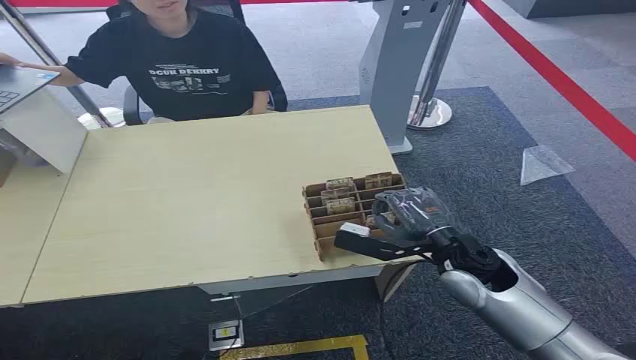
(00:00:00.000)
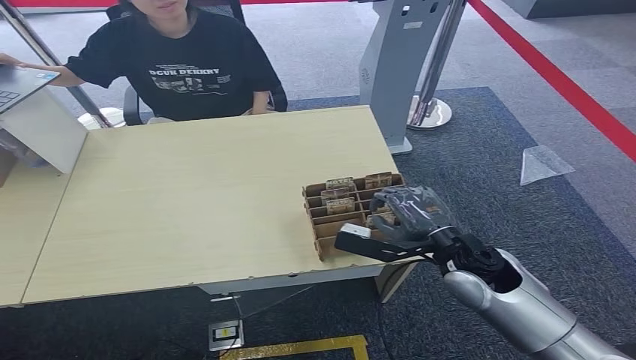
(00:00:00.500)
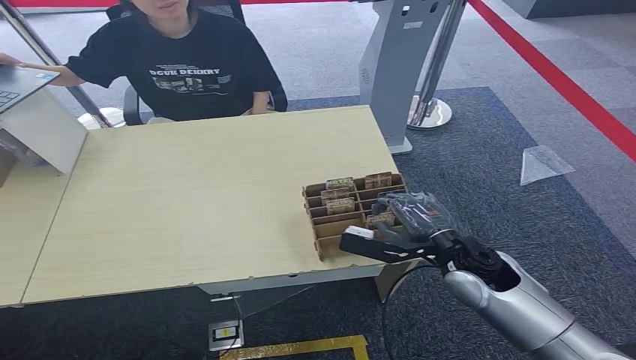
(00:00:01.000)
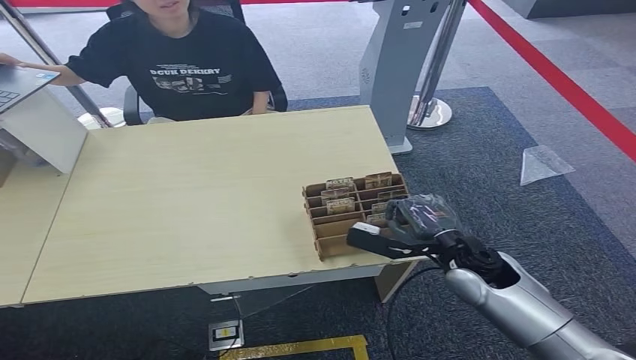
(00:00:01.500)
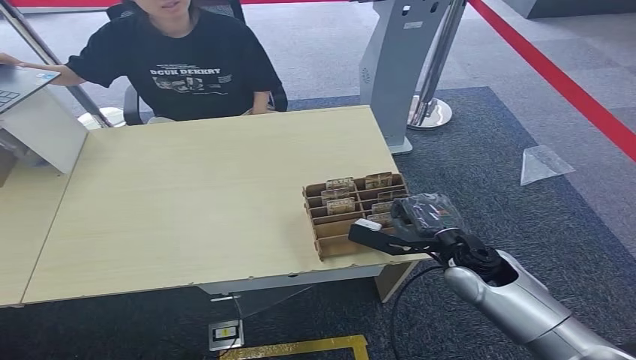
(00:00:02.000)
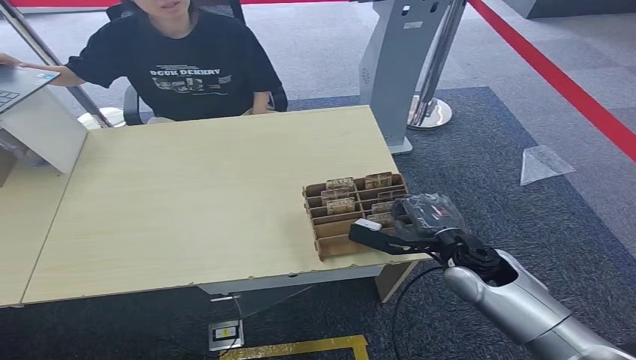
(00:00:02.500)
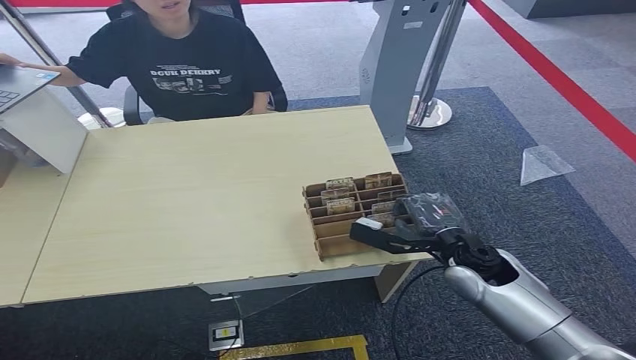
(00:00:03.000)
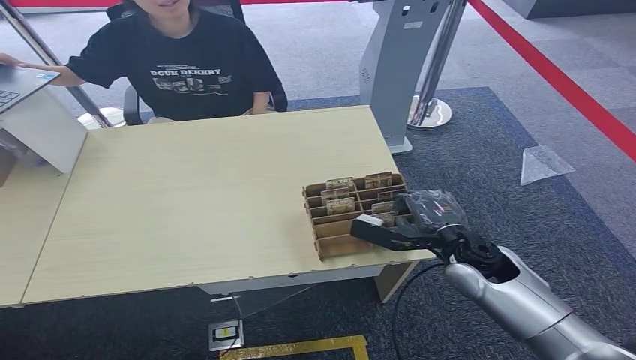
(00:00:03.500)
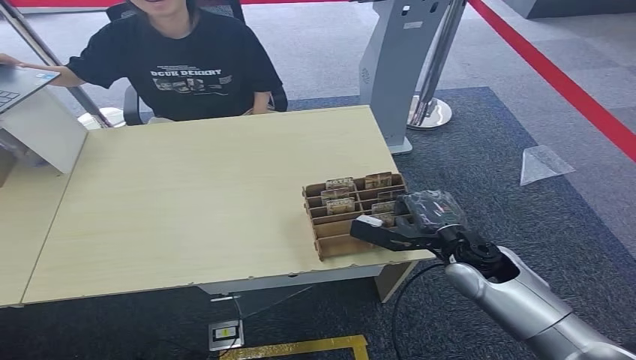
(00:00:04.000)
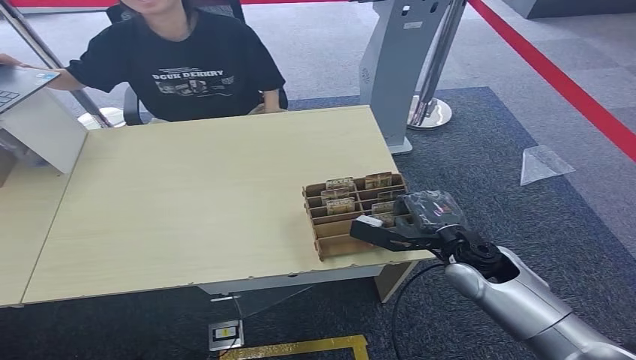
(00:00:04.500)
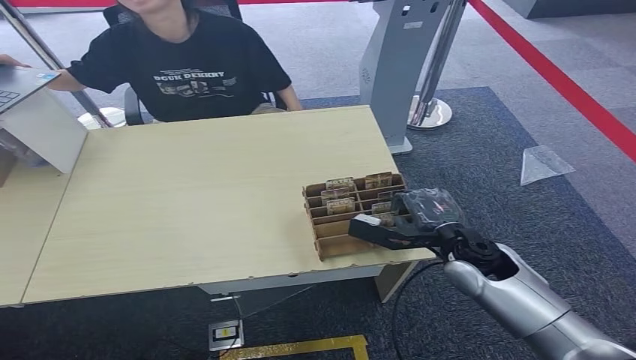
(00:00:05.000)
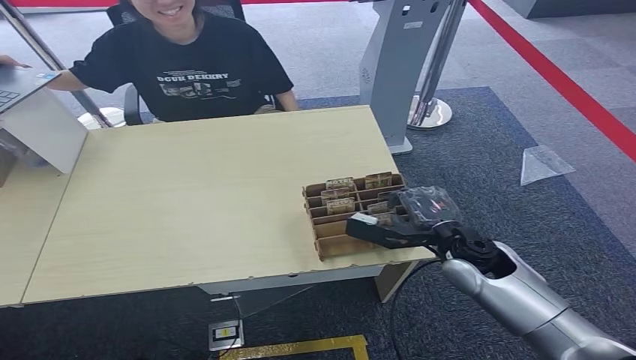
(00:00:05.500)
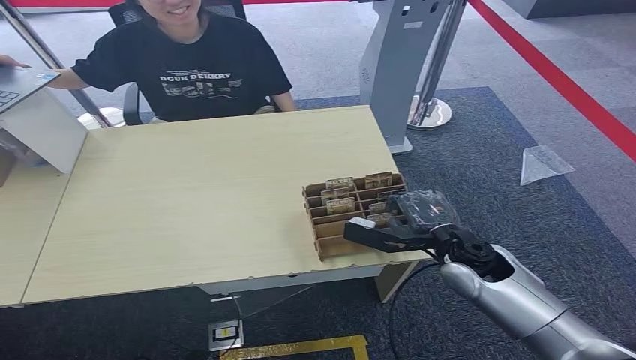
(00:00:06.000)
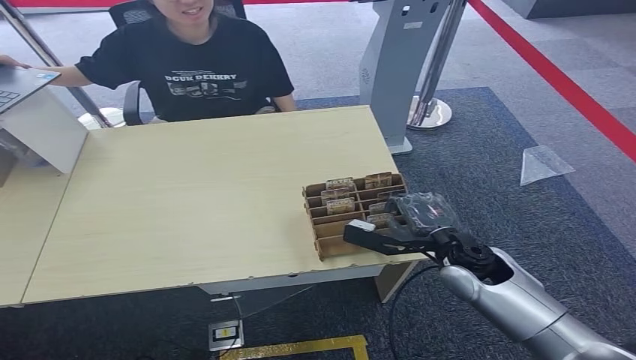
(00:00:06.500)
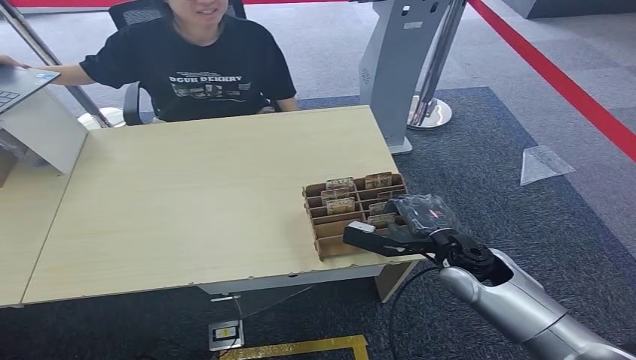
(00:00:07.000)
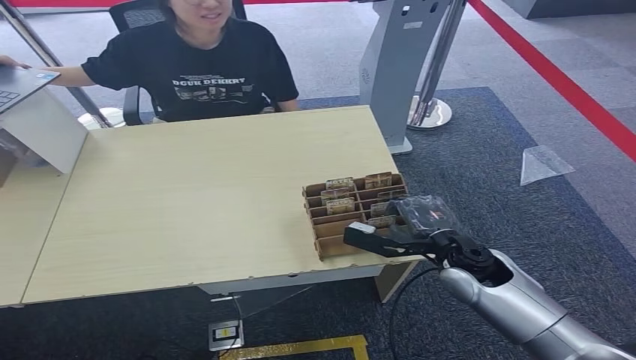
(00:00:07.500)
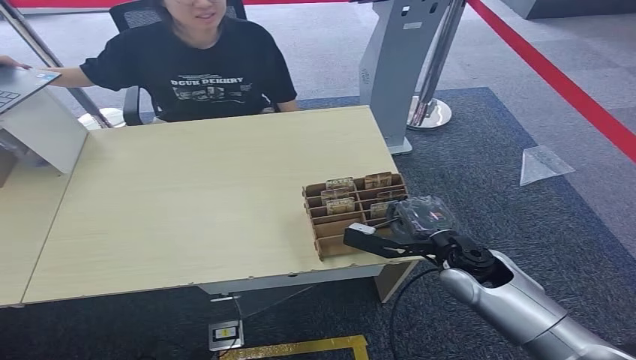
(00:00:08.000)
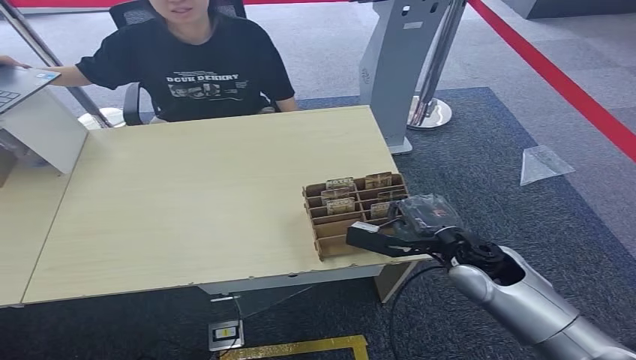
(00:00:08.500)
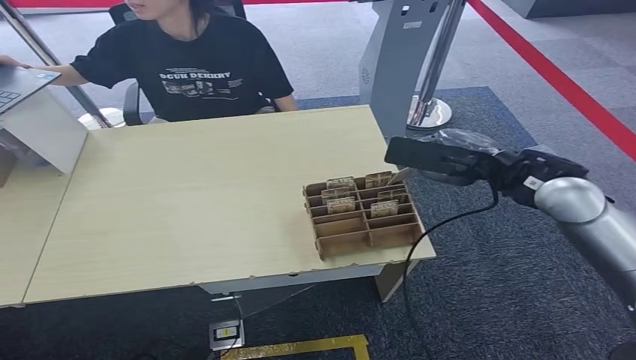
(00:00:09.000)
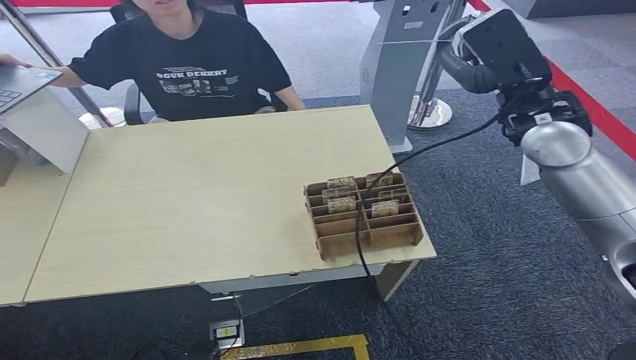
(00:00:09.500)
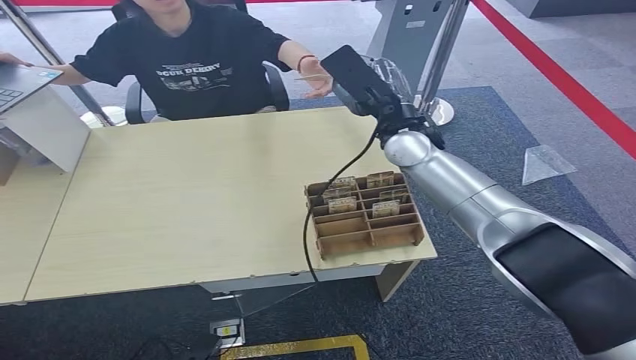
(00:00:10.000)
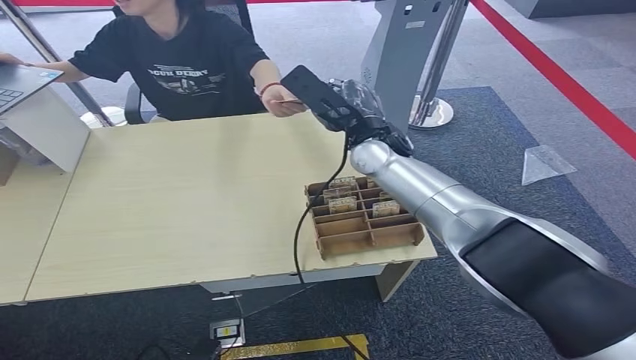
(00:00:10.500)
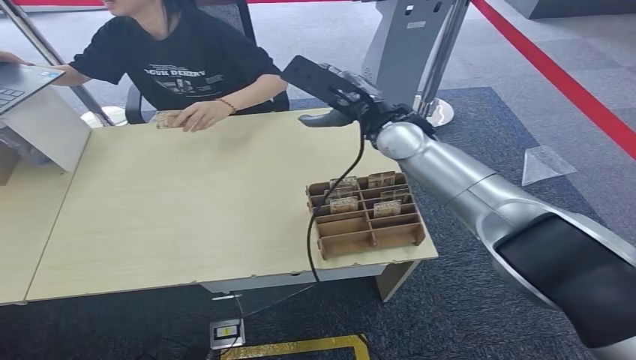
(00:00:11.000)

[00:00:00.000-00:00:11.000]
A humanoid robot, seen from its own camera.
Step, 00:00:00.000 to 00:00:09.500: Pick up the room card from the card holder.
Step, 00:00:10.000 to 00:00:11.000: Hand the room card to the target.
00:00:02.000 to 00:00:03.500: Both hands stay about where they are.
00:00:03.500 to 00:00:05.500: Neither hand changes place.
00:00:05.500 to 00:00:07.500: The hands make only small movements.
00:00:07.500 to 00:00:09.000: The right hand moves upward, some 20 cm.
